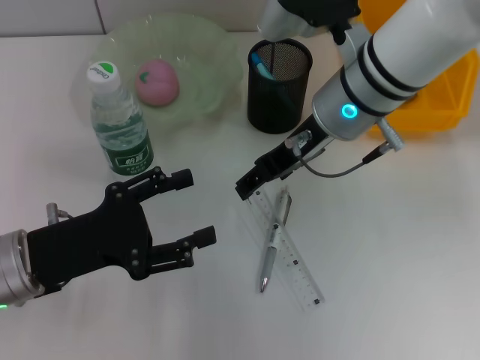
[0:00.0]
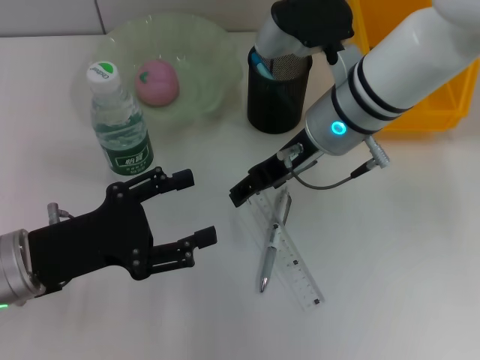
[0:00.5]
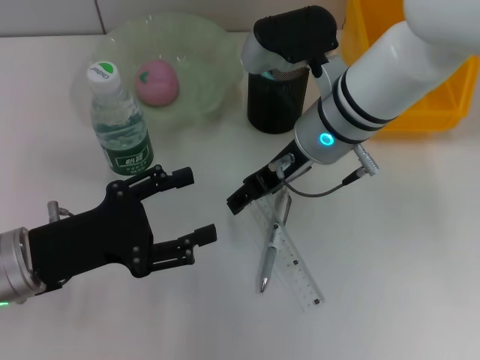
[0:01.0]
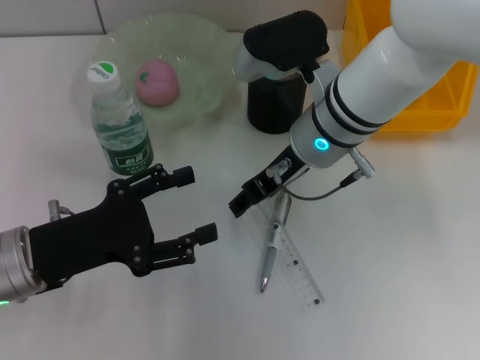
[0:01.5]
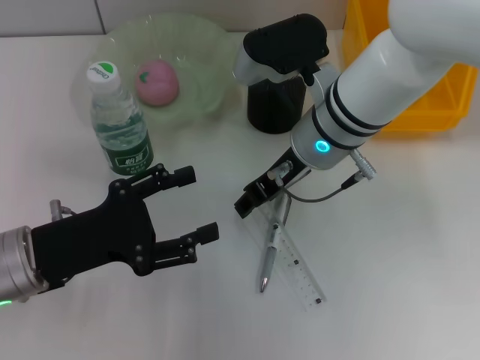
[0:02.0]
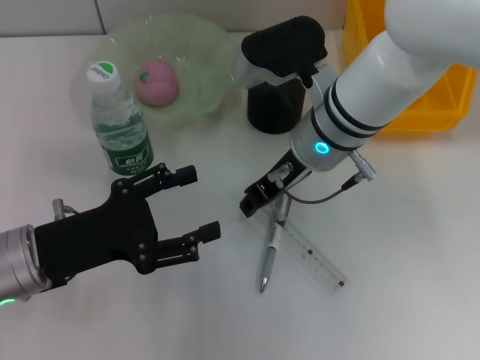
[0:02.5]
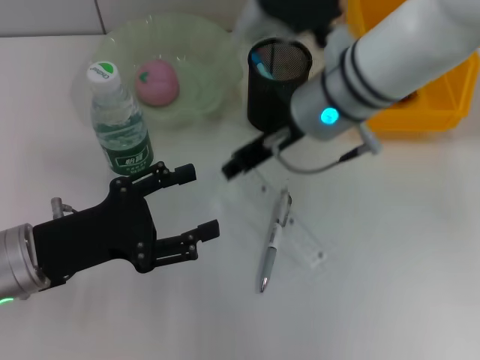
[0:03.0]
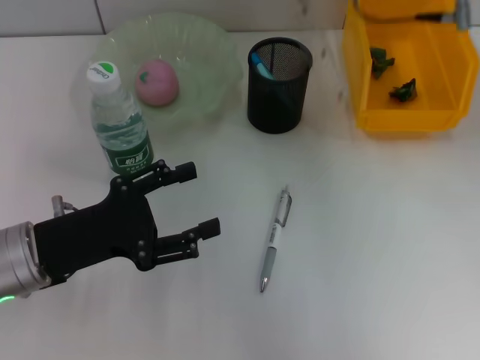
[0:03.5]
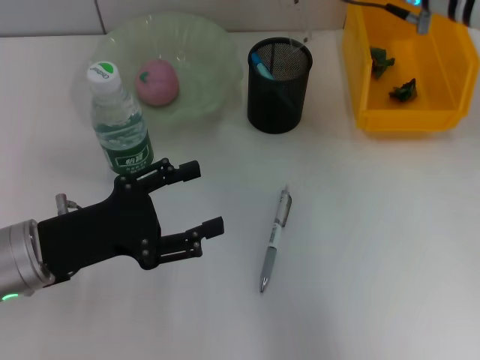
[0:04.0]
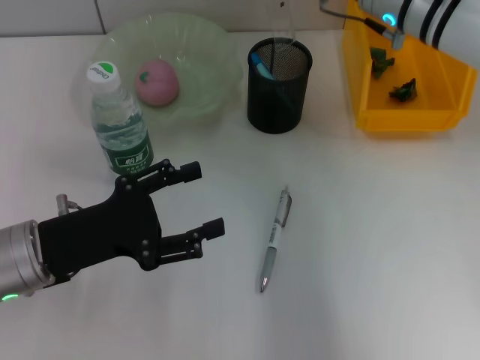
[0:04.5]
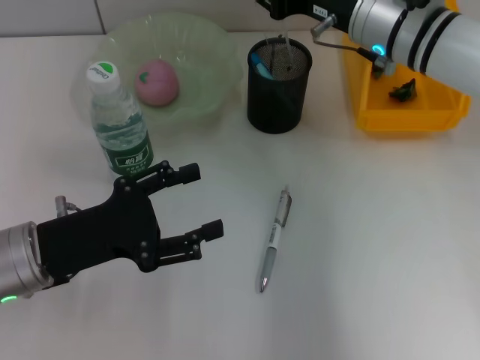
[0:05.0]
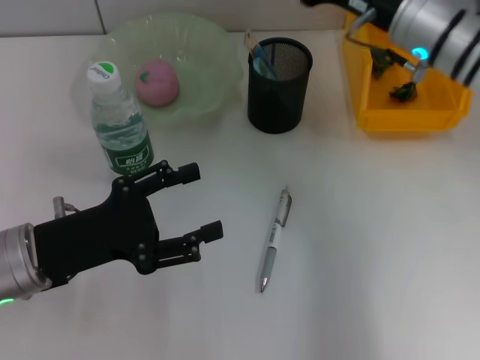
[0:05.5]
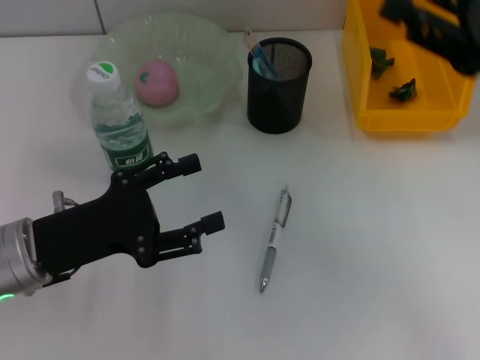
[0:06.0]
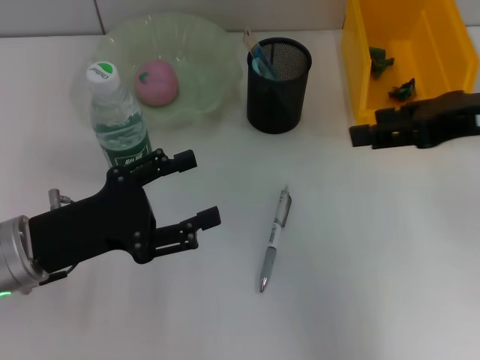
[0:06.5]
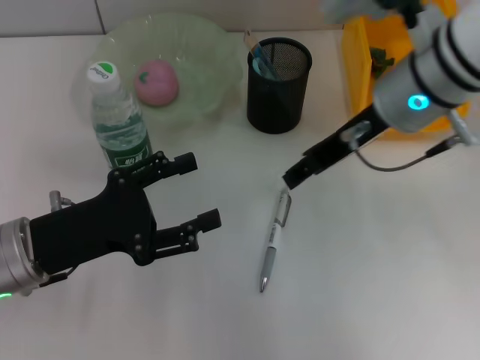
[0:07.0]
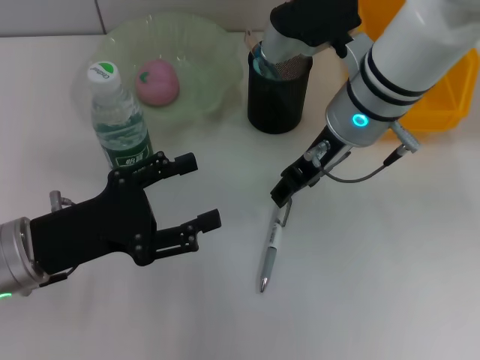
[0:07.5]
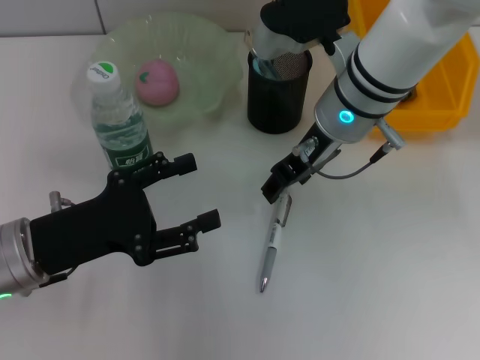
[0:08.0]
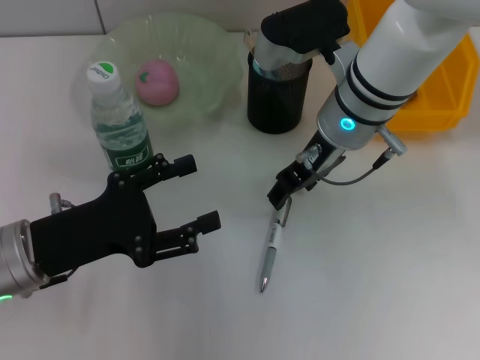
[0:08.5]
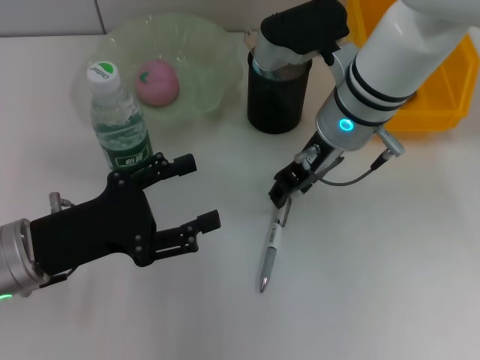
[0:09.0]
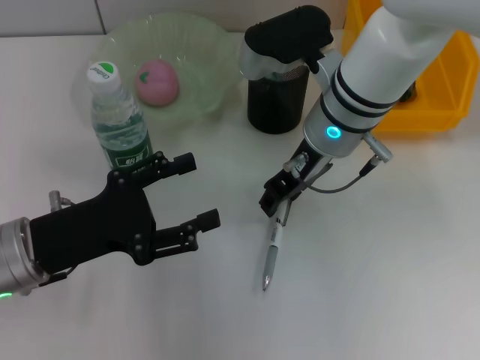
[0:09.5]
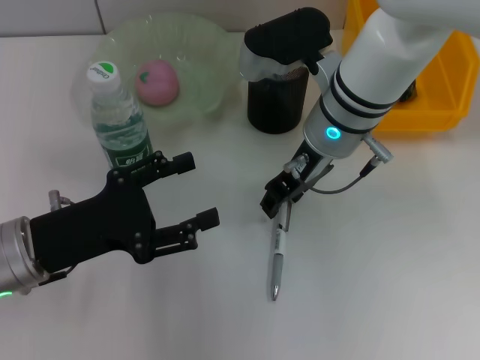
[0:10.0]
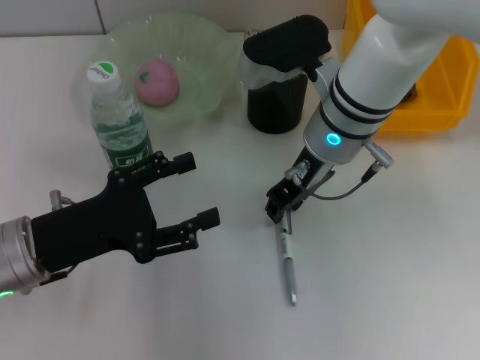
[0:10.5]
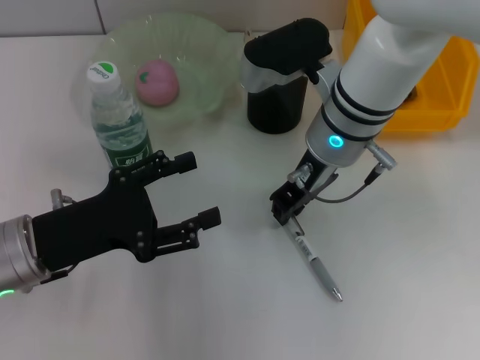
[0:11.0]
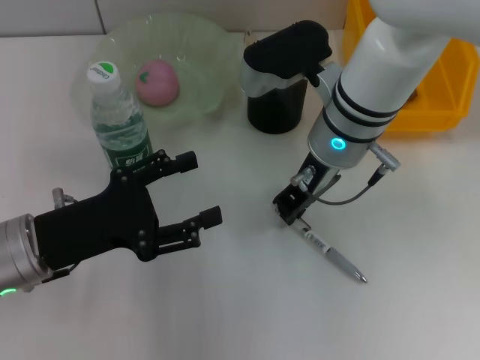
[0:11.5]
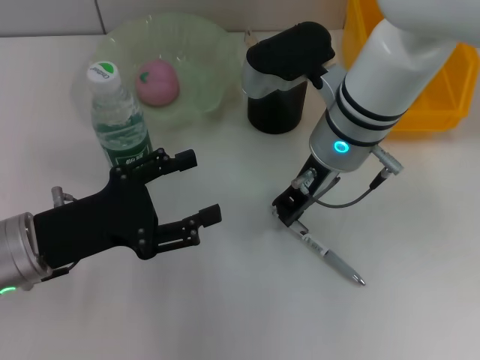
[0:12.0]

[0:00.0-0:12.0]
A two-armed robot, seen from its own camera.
Step, 0:00.0 to 0:02.5: Grab the ruler with the right hand.
Step, 0:03.0 to 0:05.0: Place the ruler into the pen holder with the right hand.
0:00.0 to 0:02.0: The grippers make only small movements.
0:02.0 to 0:04.0: The right gripper shifts roughly 10 cm upward and to the right.
0:04.0 to 0:06.0: The right gripper heads backward and to the right, covering about 20 cm, and opens up.
0:06.0 to 0:08.0: The right gripper shifts approximately 20 cm to the left and forward.
0:08.0 to 0:10.0: There are only small adjustments of the grippers.
0:10.0 to 0:12.0: The right gripper closes its fingers.

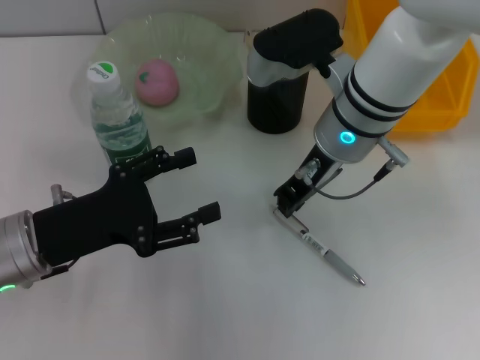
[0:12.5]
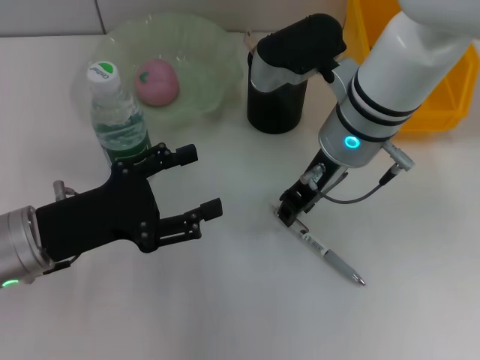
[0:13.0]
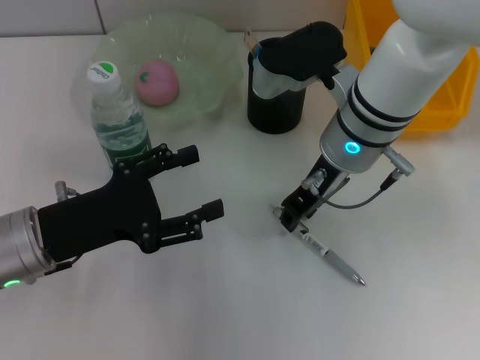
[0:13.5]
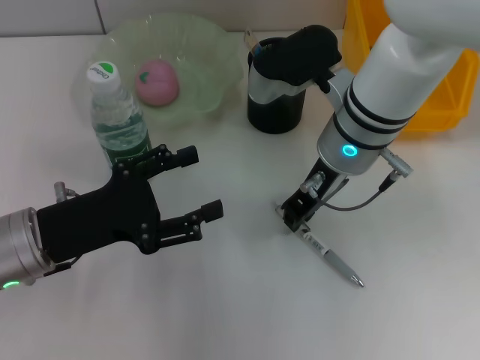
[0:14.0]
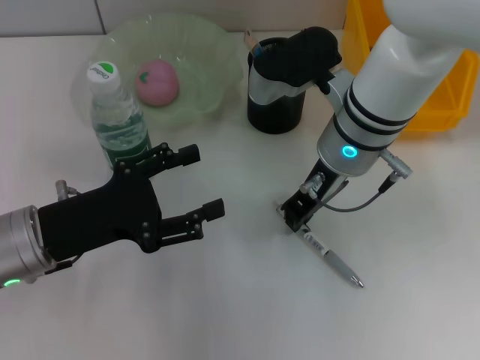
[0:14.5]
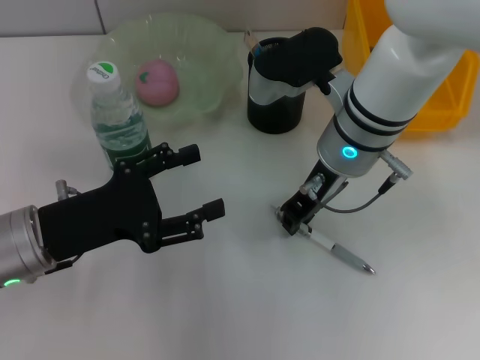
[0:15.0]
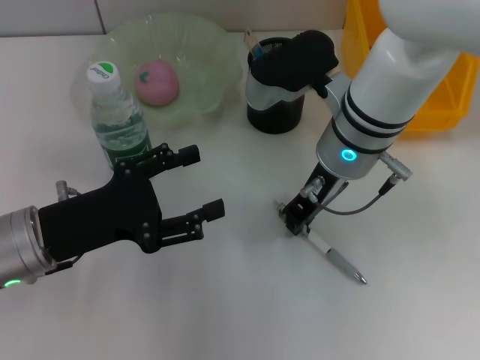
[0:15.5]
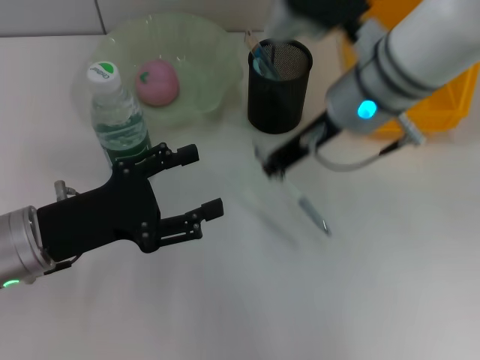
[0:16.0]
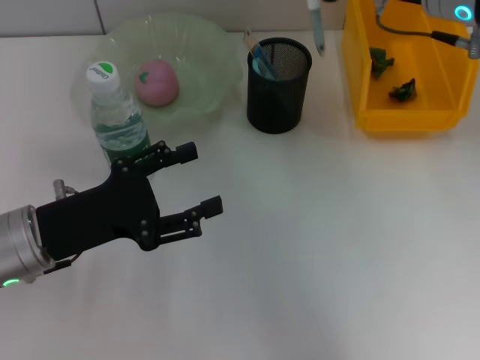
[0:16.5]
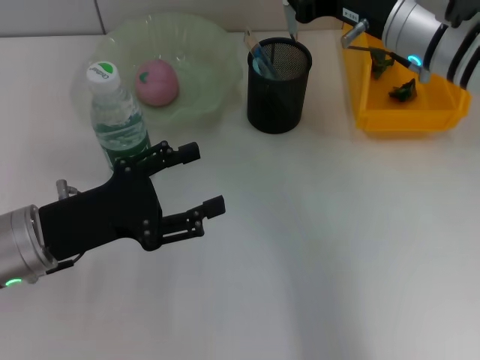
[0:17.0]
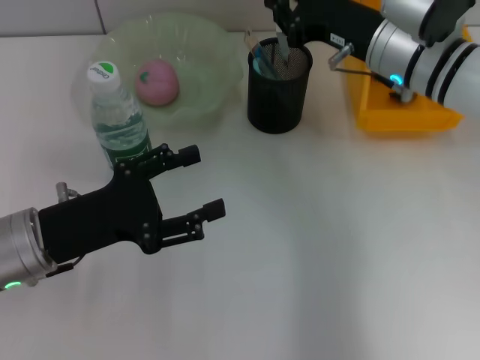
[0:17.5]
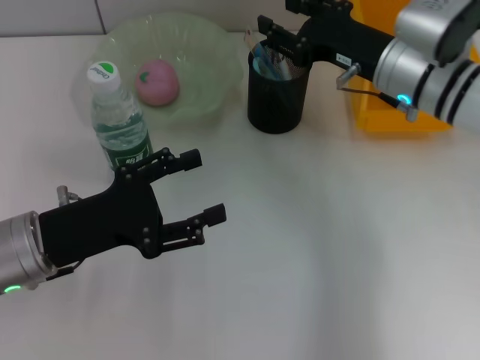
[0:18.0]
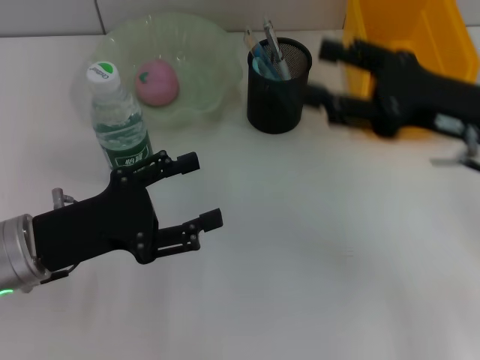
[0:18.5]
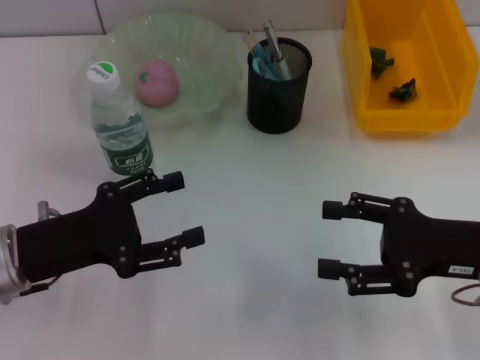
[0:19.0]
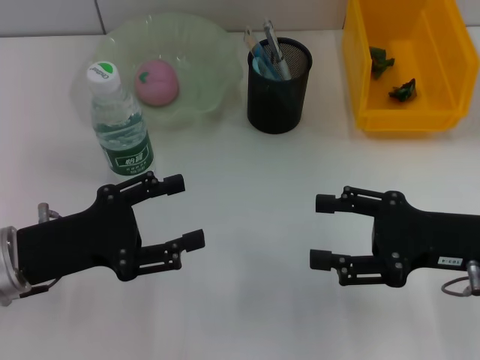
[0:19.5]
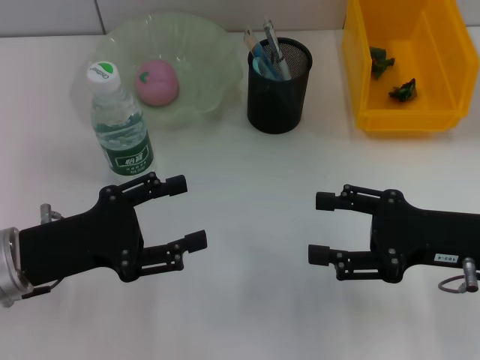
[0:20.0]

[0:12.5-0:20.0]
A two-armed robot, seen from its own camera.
Step, 0:12.5 to 0:15.5: Grab the gray spring-action pen with the right hand.
Step, 0:16.0 to 0:17.5: Place the gray spring-action pen into the pen holder with the right hand.
0:12.5 to 0:14.5: Both grippers stay put.
0:14.5 to 0:16.5: The right gripper travels upward and to the right by some 15 cm.
0:16.5 to 0:18.0: The right gripper moves downward, some 10 cm.
0:18.0 to 0:20.0: The right gripper heads backward and to the right, covering about 15 cm, and opens its fingers.

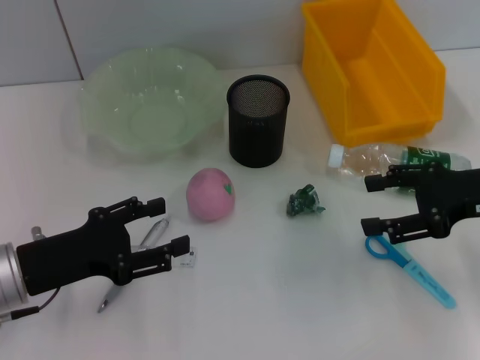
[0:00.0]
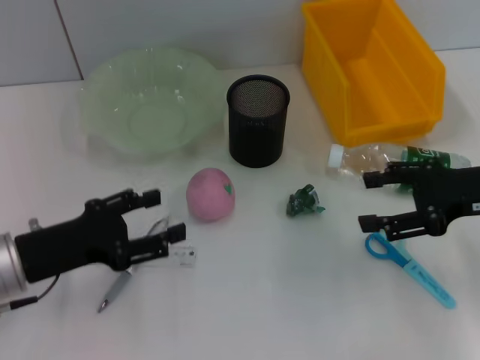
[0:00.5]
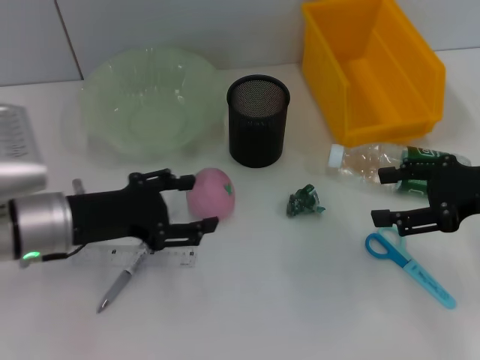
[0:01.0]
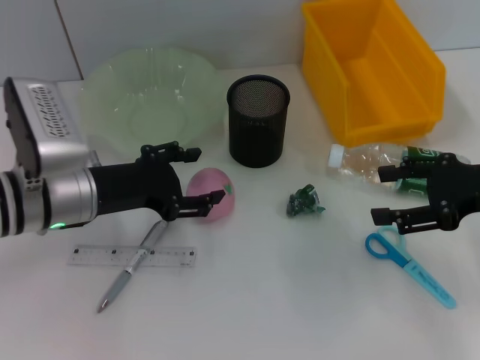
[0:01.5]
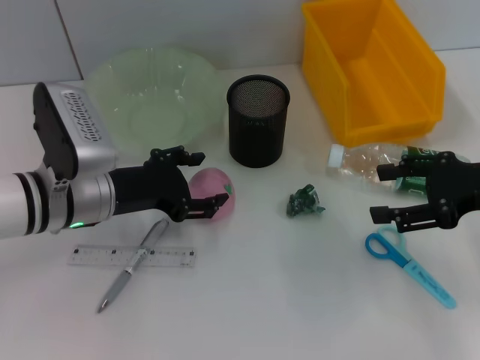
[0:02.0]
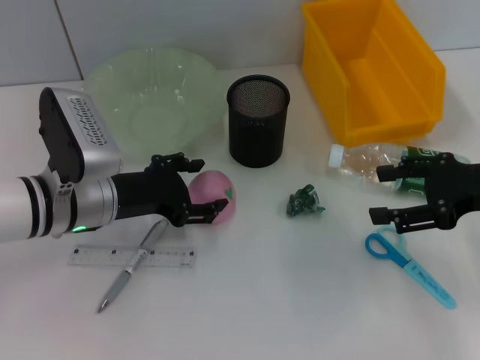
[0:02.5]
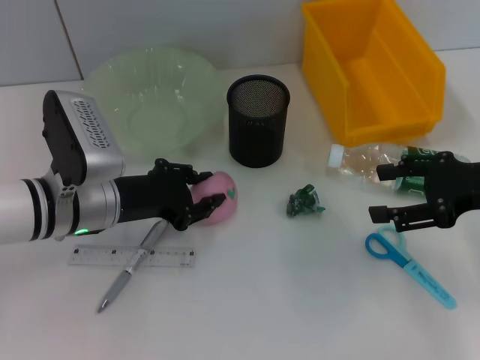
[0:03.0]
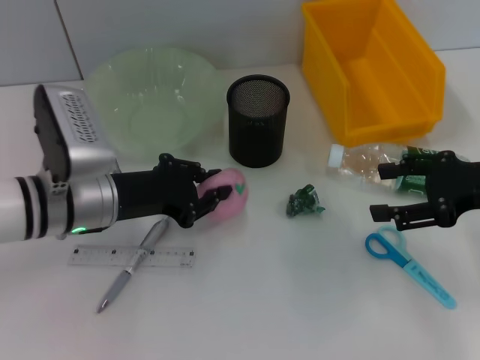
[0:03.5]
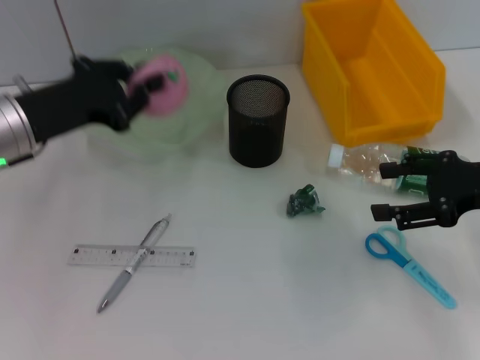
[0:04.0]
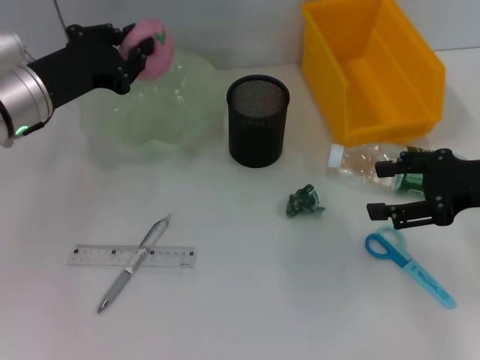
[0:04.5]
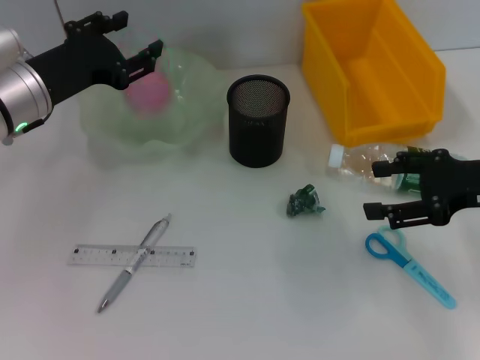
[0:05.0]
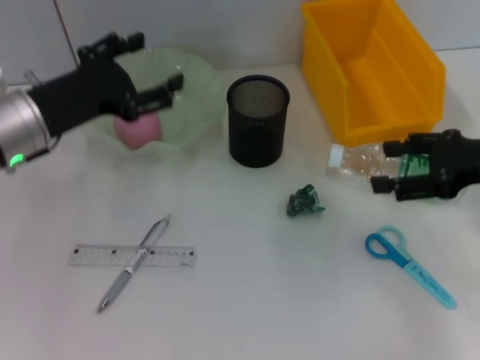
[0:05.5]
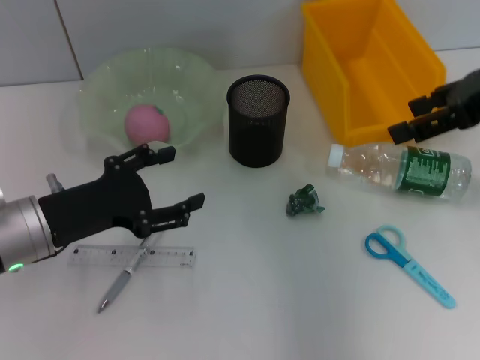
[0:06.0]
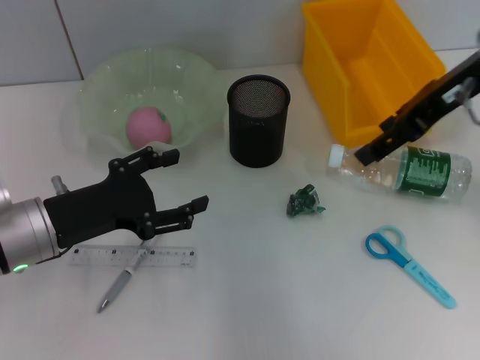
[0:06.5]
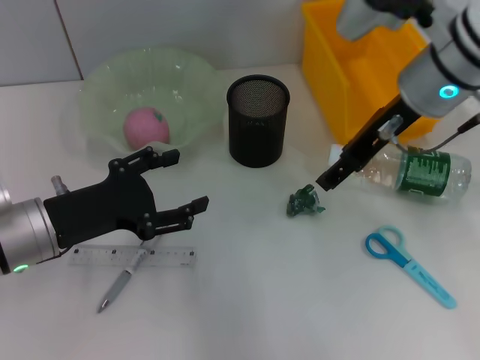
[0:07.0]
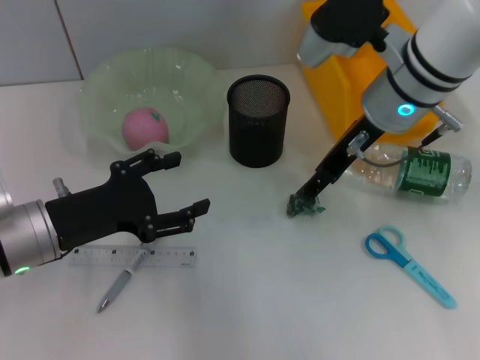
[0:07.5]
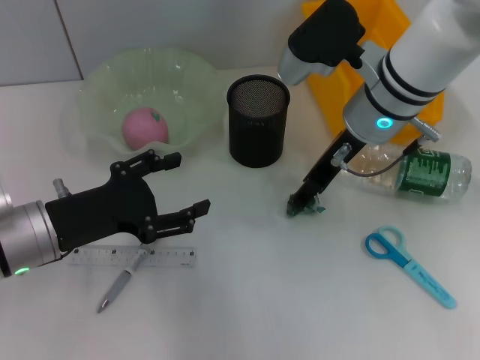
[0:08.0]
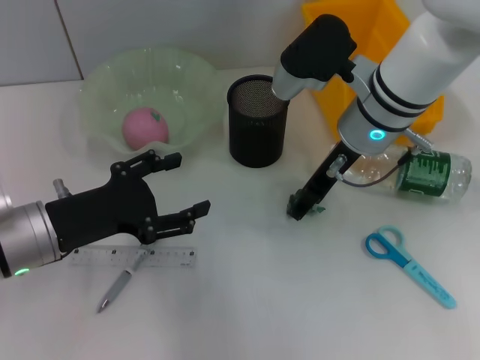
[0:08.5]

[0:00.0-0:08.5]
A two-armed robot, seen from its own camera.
Step, 0:00.0 to 0:03.0: Grab the peach with the left hand.
Step, 0:03.5 to 0:05.0: Place the peach into the fruit bowl with the left hand.
0:00.0 to 0:02.0: The left gripper goes about 10 cm forward and to the right.
0:02.0 to 0:04.0: The left gripper travels upward and to the left by roughly 10 cm, and closes up.
0:04.0 to 0:06.5: The left gripper is displaced downward and backward by some 10 cm, and opens its fingers. Meanwhile the right gripper moves upward, to the left and forward, approximately 15 cm.
0:06.5 to 0:08.5: The right gripper travels to the left and downward by roughly 15 cm.
